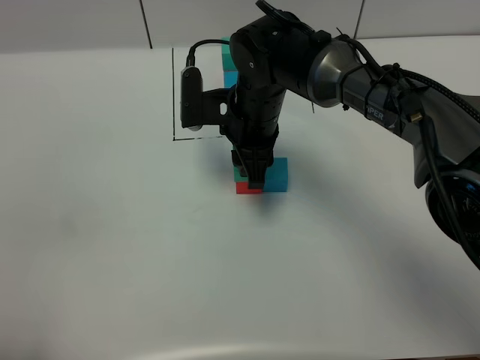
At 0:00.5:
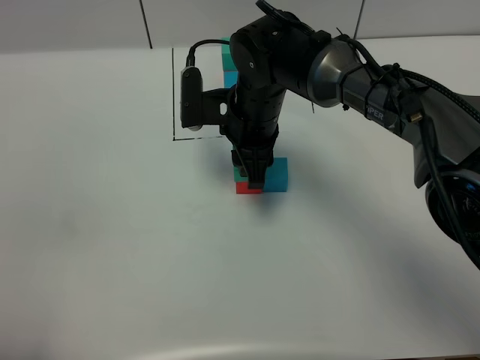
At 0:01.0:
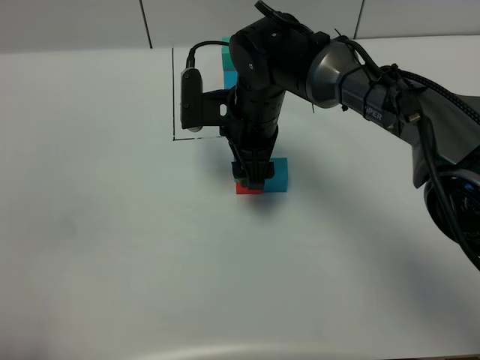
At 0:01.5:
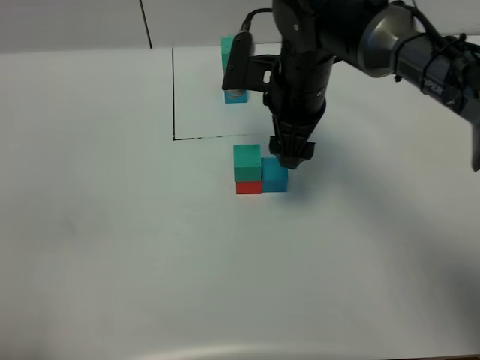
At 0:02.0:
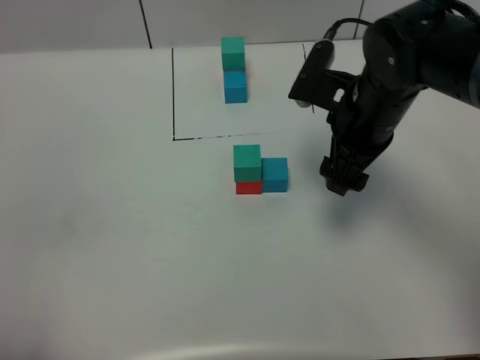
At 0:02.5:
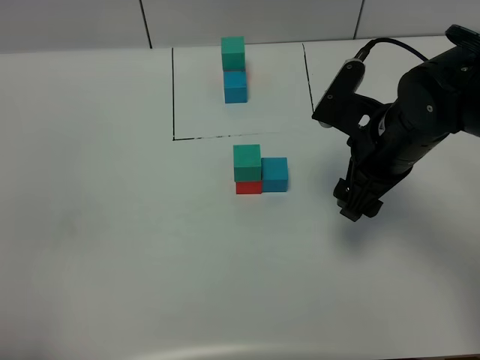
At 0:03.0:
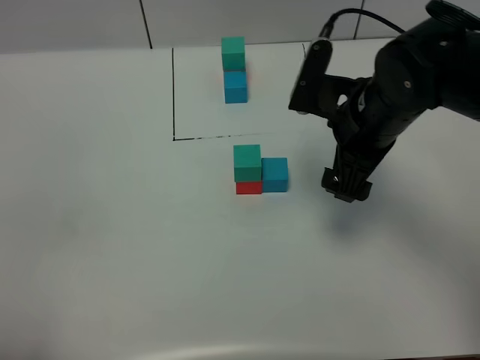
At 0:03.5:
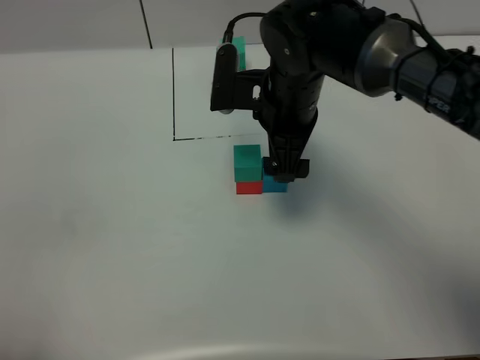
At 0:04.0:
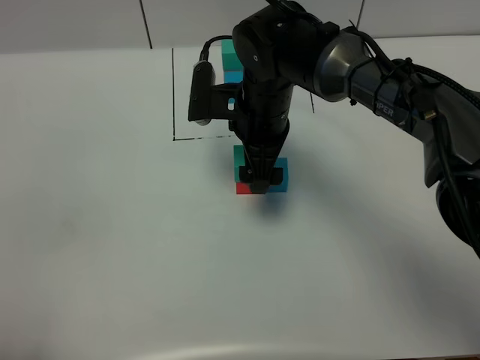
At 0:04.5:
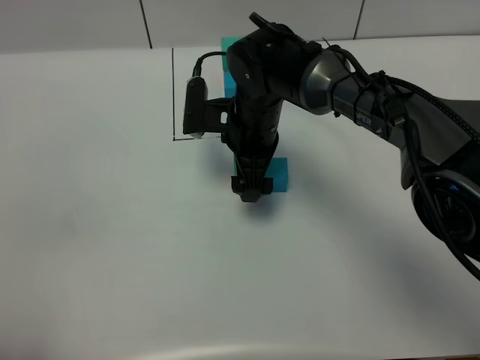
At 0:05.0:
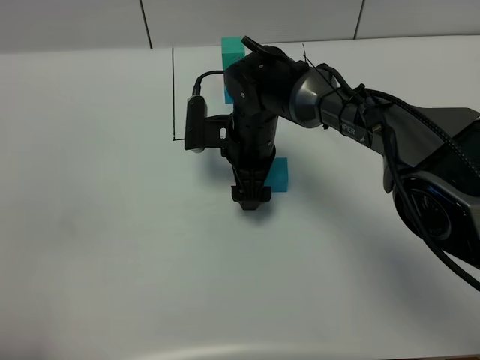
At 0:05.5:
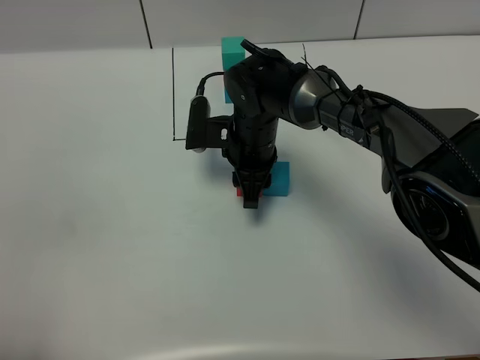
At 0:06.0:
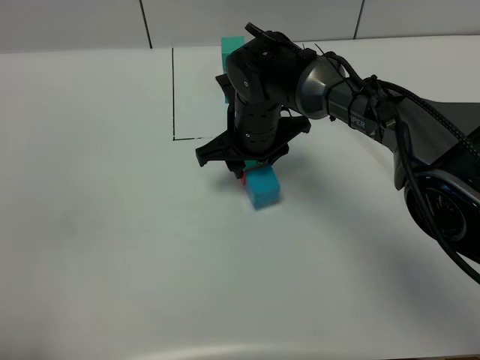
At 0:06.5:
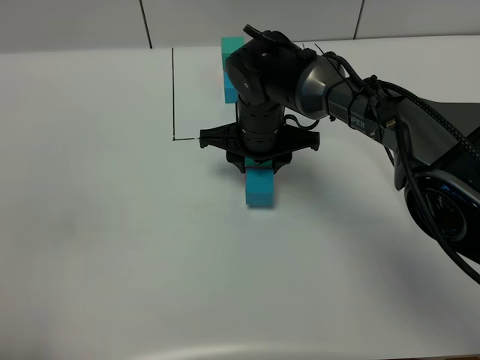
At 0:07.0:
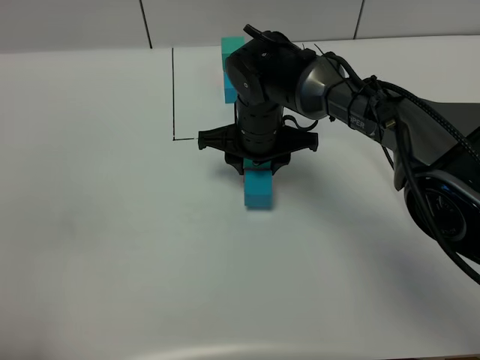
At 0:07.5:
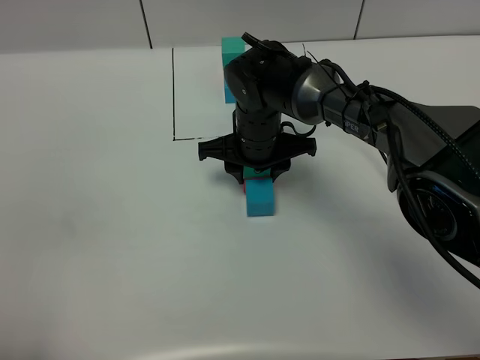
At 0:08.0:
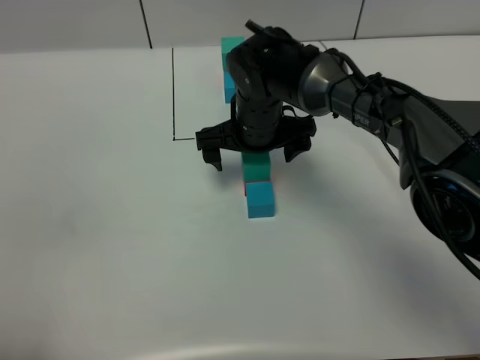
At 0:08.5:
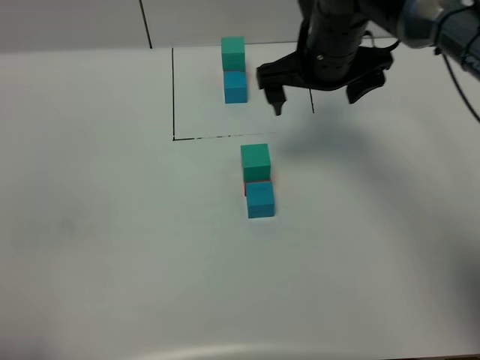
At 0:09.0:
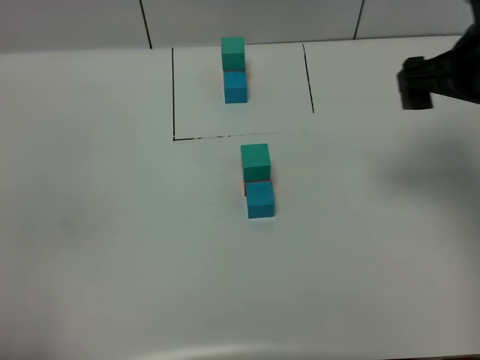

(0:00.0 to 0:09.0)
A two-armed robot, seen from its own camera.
Task of the whole recording: According to the building block template in front, assemble the scattered blocks together.
Step, 0:01.5 - 0:07.5: Adjust the pose of the building blocks.
0:00.0 - 0:02.0: The right gripper shifts some 15 cm to the right, and opens its fingers.
0:02.0 - 0:04.5: The right gripper shifts about 15 cm to the left and downward.
0:04.5 - 0:07.0: The right gripper closes its fingers.
0:07.0 - 0:09.0: The right gripper goes approximately 30 cm to the right and upward, and opens its fingers.

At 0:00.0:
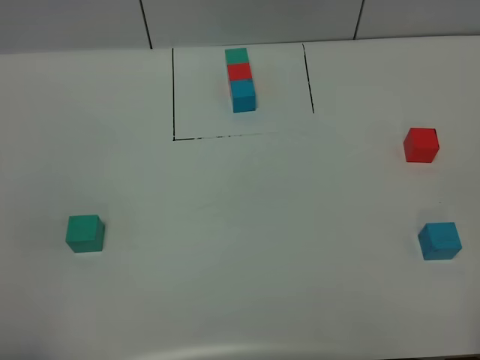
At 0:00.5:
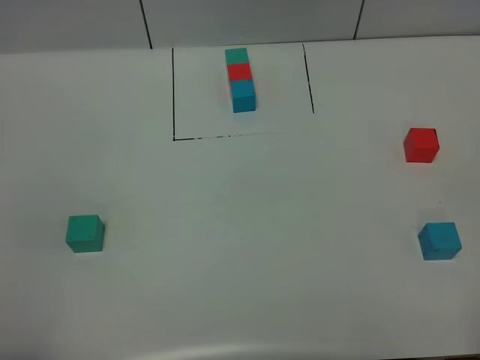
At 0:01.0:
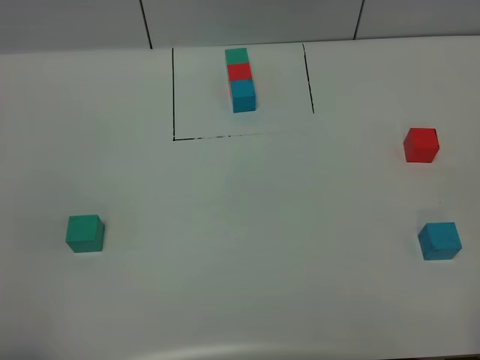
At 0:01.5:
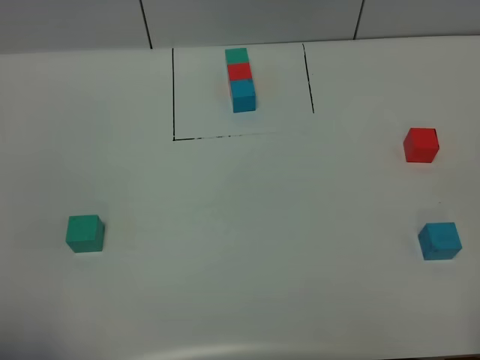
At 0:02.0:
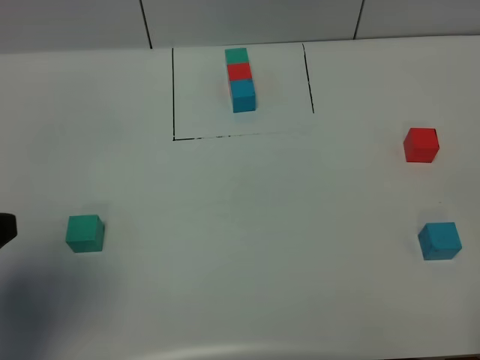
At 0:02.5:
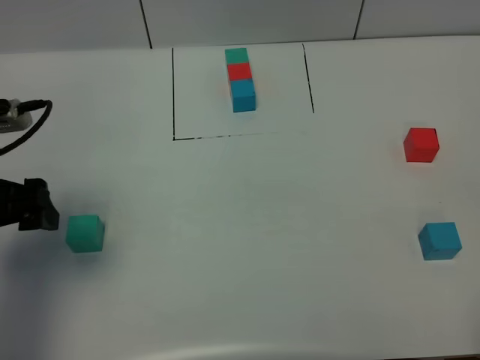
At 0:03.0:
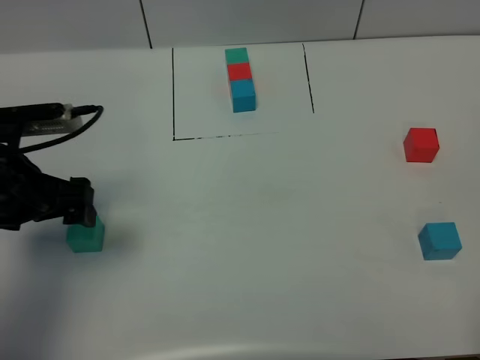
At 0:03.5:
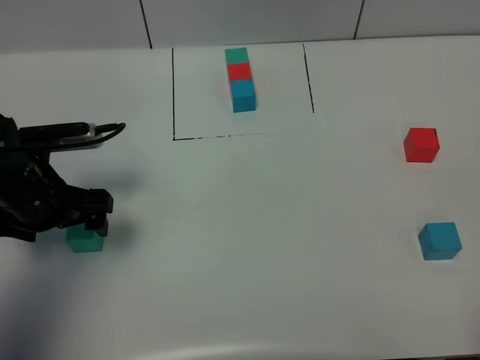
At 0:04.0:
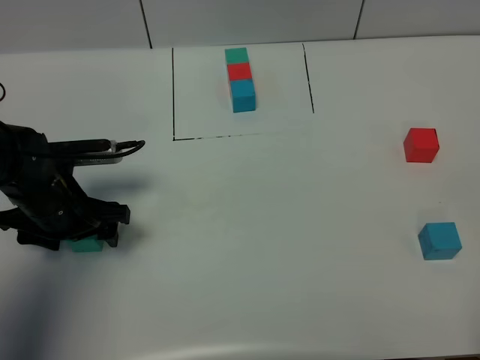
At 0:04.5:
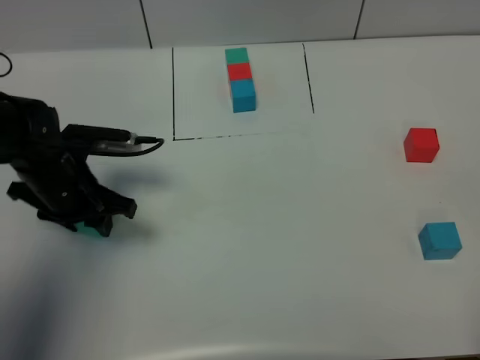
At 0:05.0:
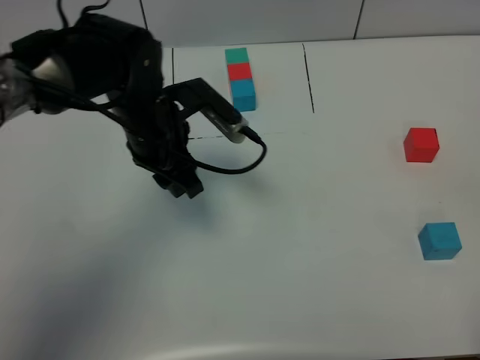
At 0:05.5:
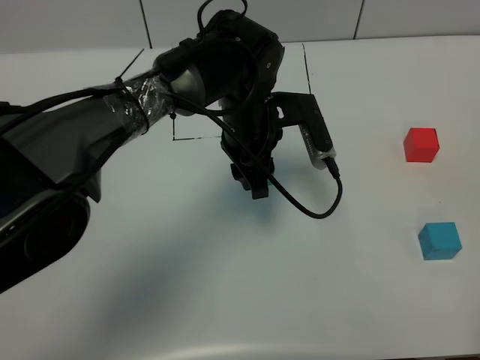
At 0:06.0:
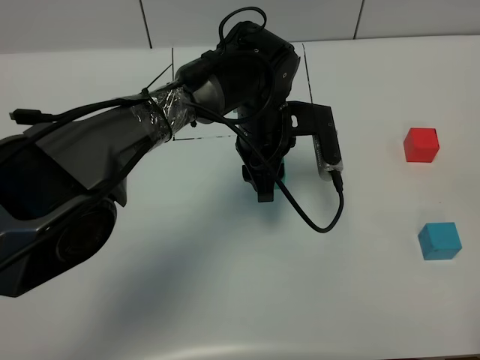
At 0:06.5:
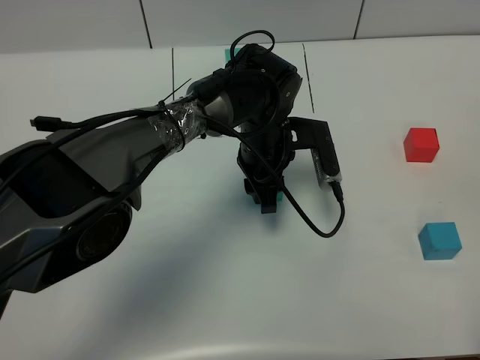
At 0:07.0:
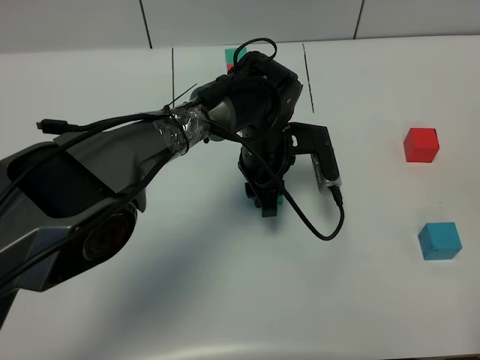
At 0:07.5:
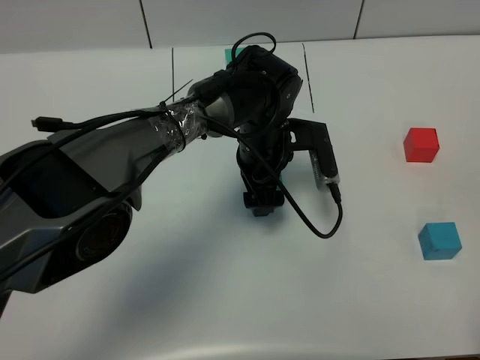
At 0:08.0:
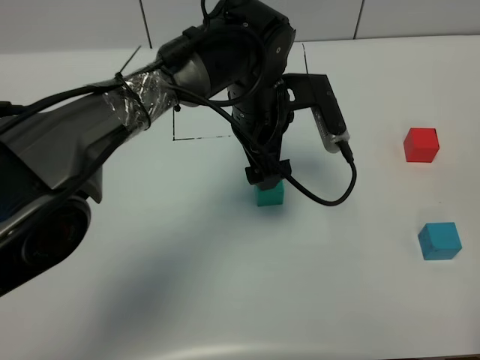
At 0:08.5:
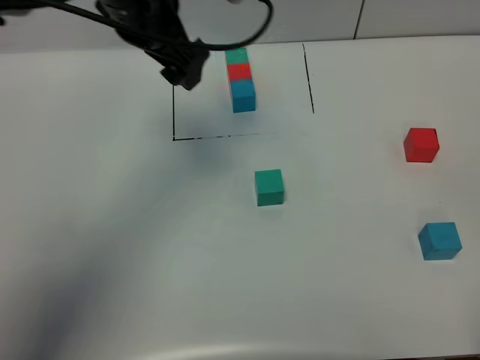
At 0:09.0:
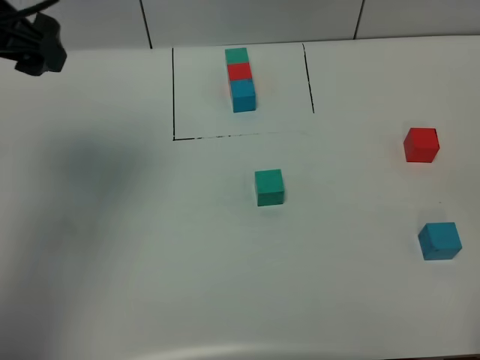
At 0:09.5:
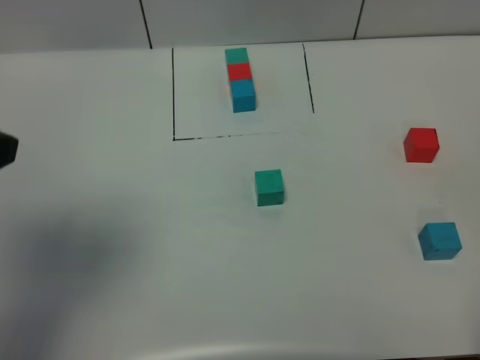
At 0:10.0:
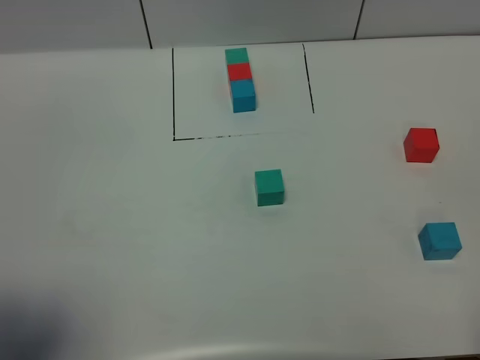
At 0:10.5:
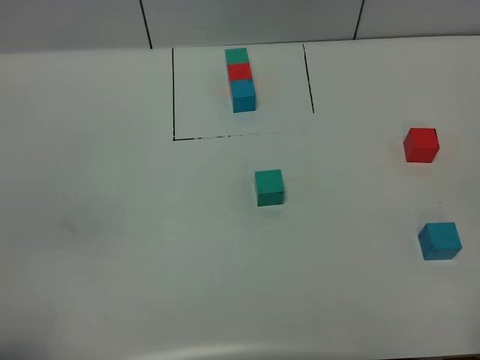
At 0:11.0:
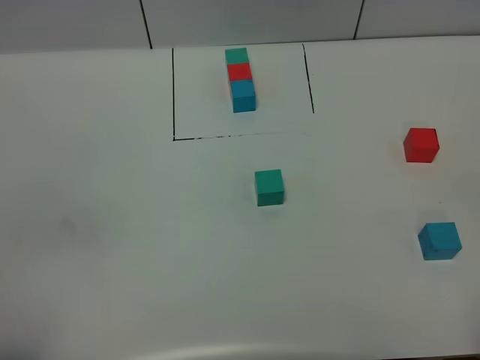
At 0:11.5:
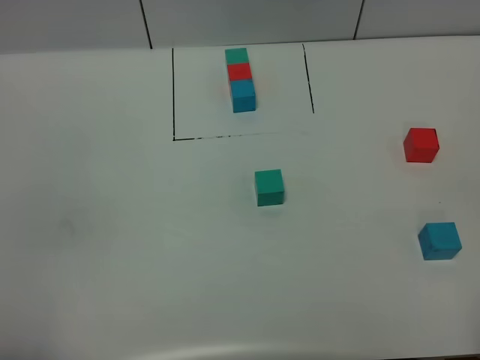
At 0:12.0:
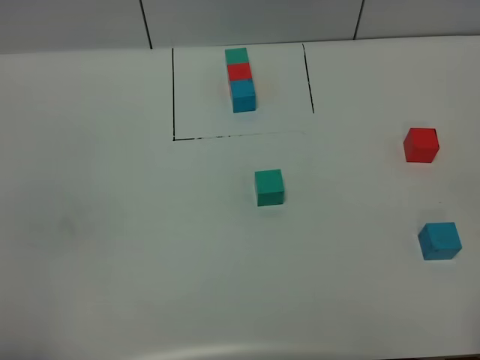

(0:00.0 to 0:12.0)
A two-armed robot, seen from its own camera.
Task of the whole recording: According to the building block template in front, assemble the scattered blocks together.
Step, 0:02.0 - 0:08.0: Put the green cube in the center of the table.
0:00.0 - 0:02.0: The left gripper travels forward by approximately 15 cm, and opens up.
0:02.0 - 0:04.0: The left gripper moves downward and forward, some 25 cm, and closes.
0:04.0 - 0:06.0: The left gripper travels to the right by about 25 cm, and closes.
0:06.0 - 0:08.0: The left gripper travels upward by some 5 cm, and opens its fingers.
0:08.0 - 0:10.0: The left gripper travels backward, to the left and upward by approximately 50 cm.
0:10.0 - 0:12.0: The left gripper shifts approximately 10 cm backward and downward, and closes its fingers.

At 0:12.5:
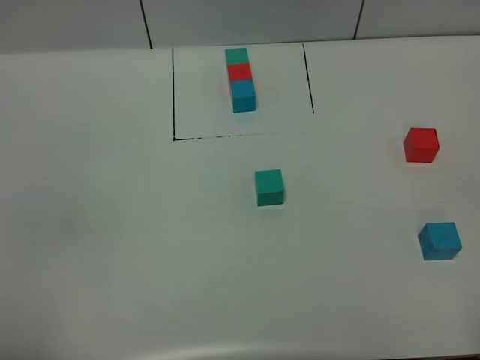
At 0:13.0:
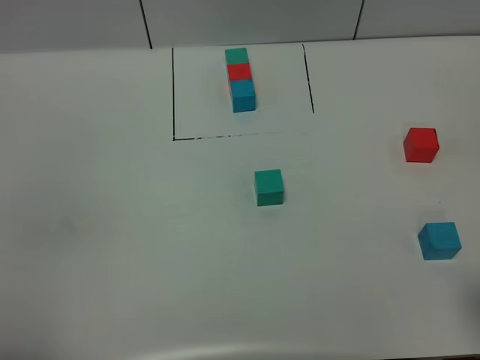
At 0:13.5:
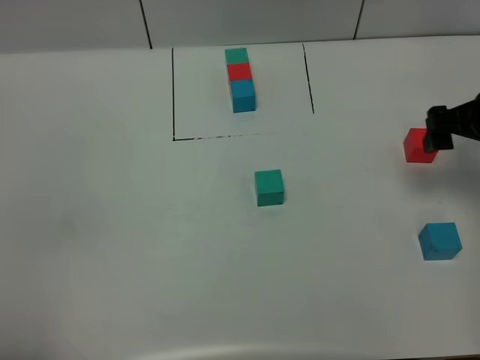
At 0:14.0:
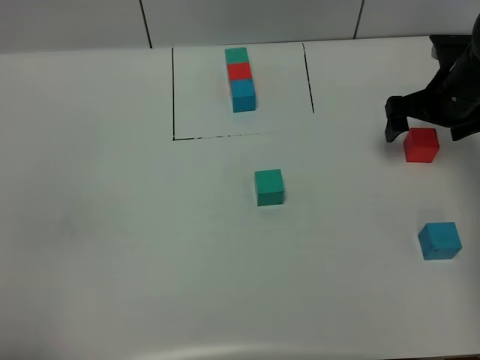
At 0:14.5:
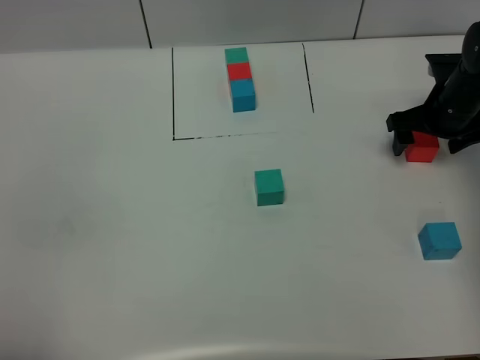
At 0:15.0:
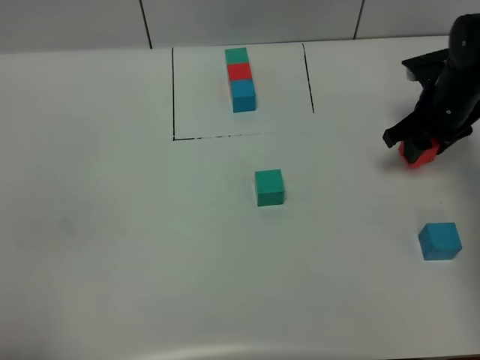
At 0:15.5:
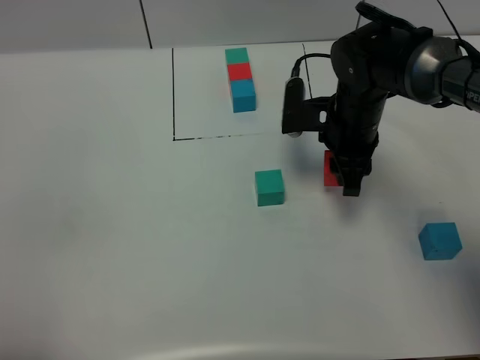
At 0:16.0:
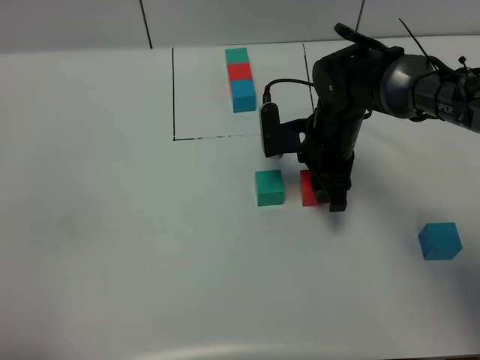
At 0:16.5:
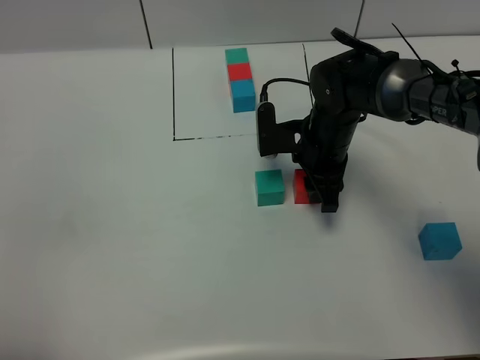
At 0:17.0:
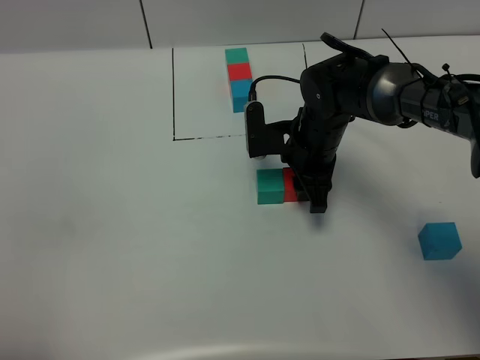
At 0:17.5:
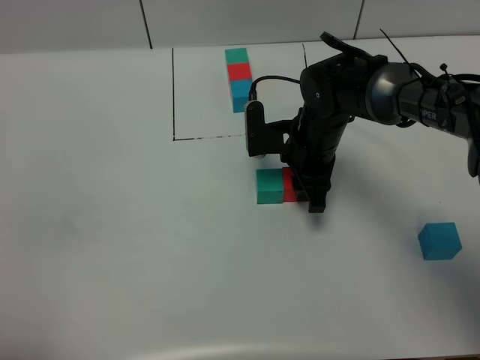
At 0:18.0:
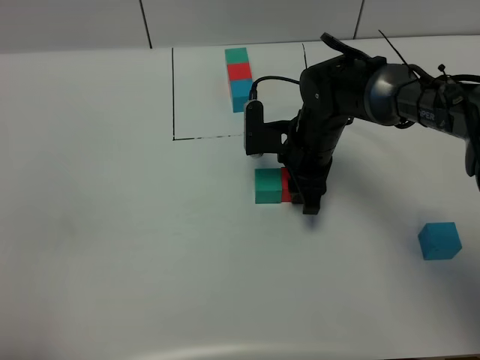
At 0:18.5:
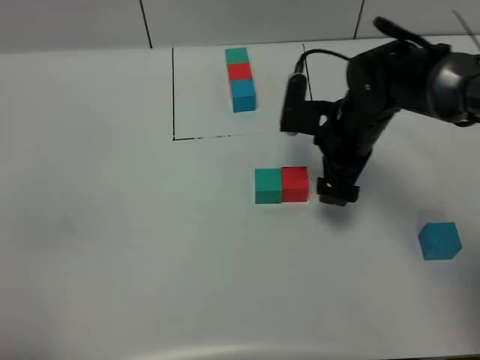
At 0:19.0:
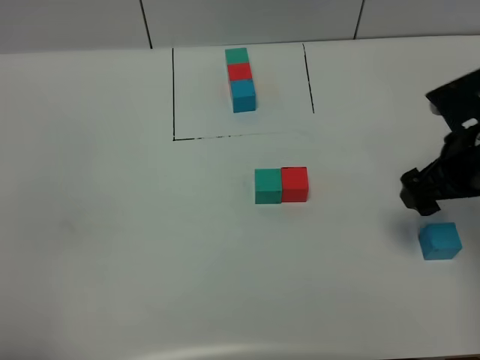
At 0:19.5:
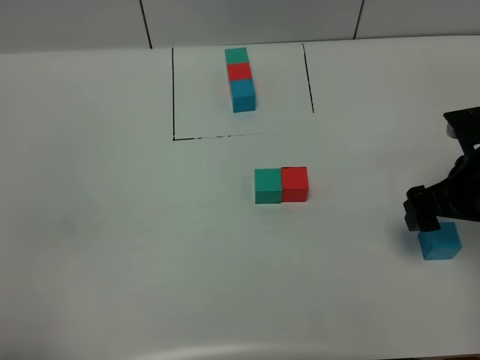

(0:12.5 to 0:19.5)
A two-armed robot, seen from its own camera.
Task of the whole recording: According to the building block template in front, assemble the scattered blocks together.
Step, 0:12.5 - 0:18.5: Put the red cube on the right of the green cube.
0:12.5 - 0:14.5: The right gripper goes some 40 cm forward.
0:14.5 - 0:16.0: The right gripper shifts some 20 cm to the left, and closes up.
0:16.0 - 0:17.5: The grippers stay close to where they were, moving slightly.
0:17.5 - 0:19.5: The right gripper moves to the right and backward, some 20 cm, and opens up.
